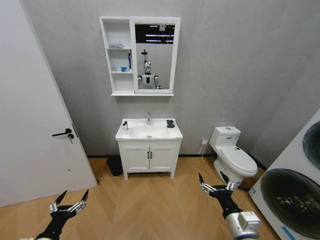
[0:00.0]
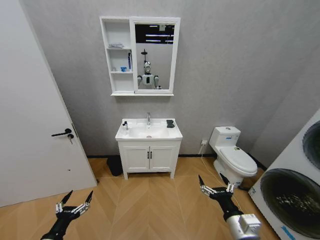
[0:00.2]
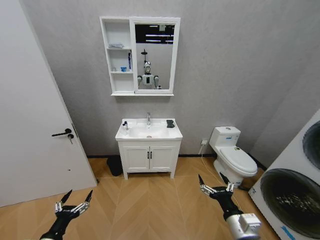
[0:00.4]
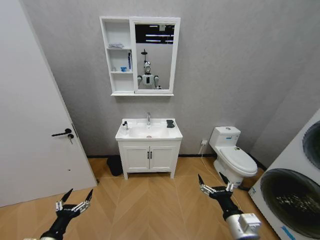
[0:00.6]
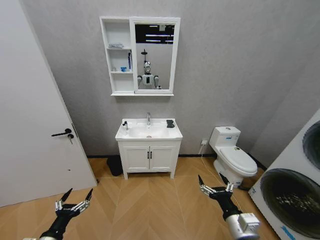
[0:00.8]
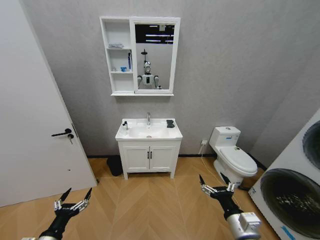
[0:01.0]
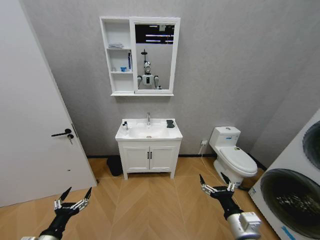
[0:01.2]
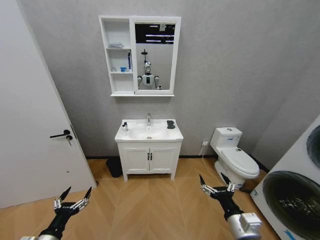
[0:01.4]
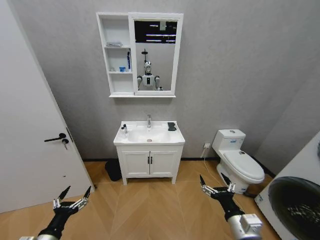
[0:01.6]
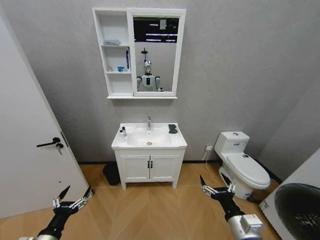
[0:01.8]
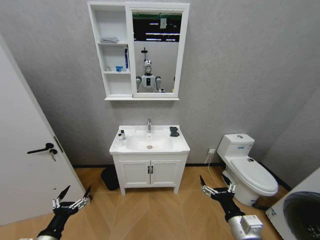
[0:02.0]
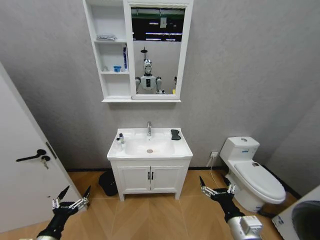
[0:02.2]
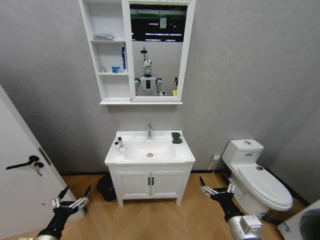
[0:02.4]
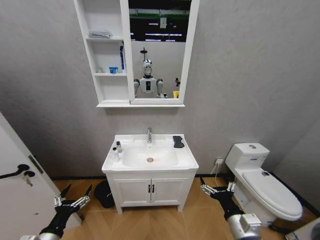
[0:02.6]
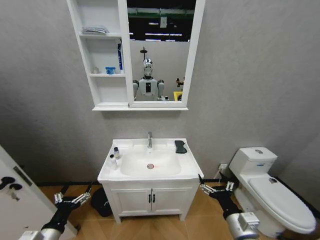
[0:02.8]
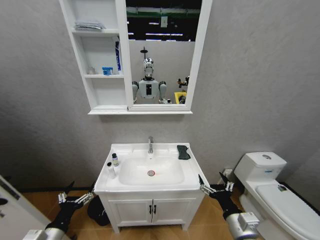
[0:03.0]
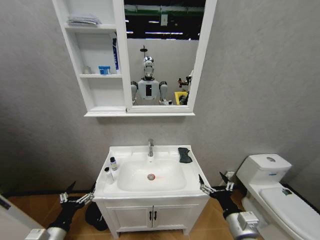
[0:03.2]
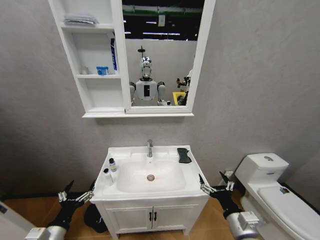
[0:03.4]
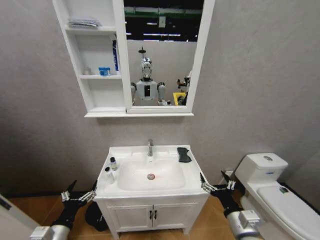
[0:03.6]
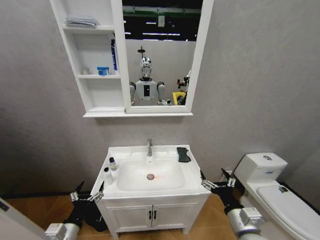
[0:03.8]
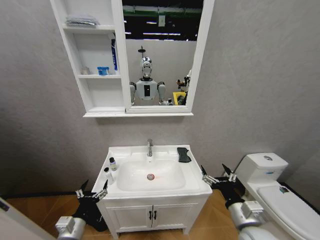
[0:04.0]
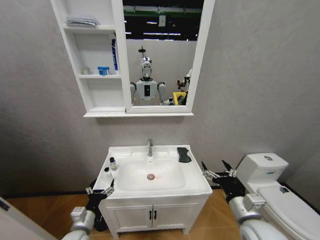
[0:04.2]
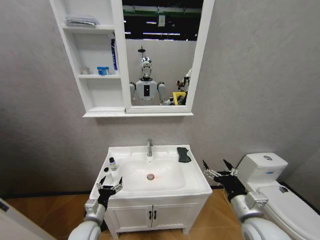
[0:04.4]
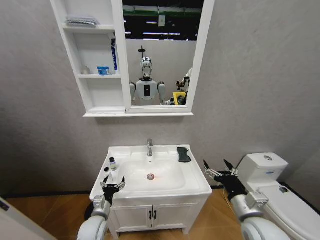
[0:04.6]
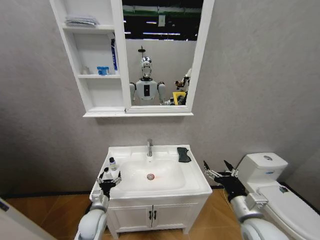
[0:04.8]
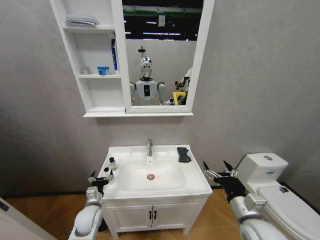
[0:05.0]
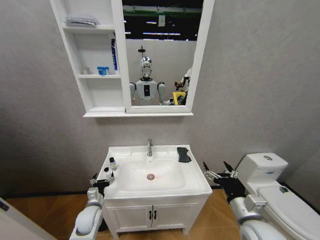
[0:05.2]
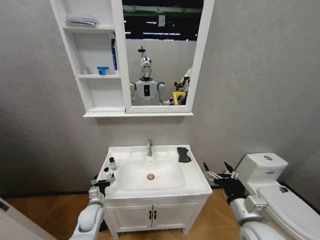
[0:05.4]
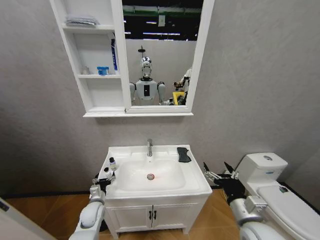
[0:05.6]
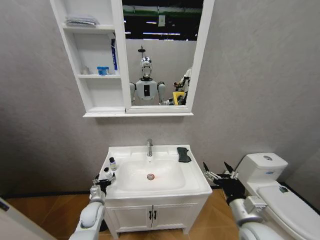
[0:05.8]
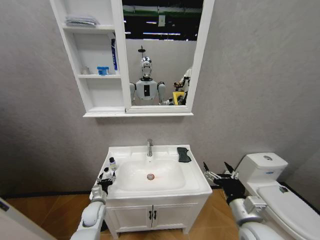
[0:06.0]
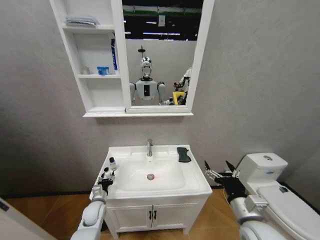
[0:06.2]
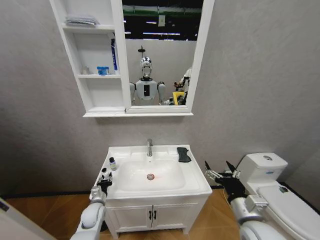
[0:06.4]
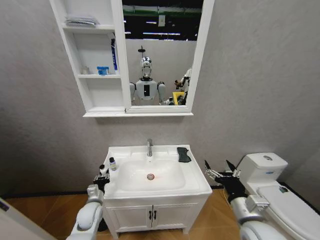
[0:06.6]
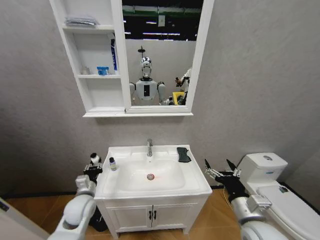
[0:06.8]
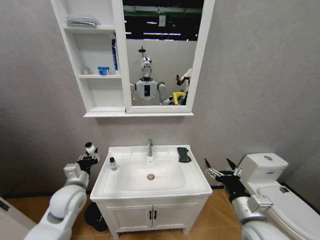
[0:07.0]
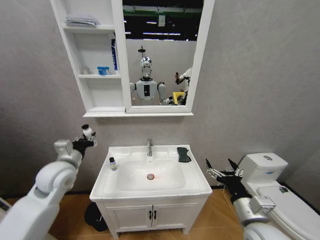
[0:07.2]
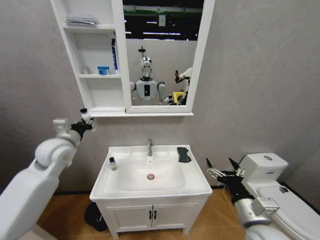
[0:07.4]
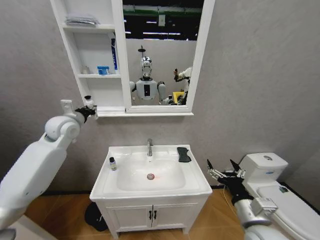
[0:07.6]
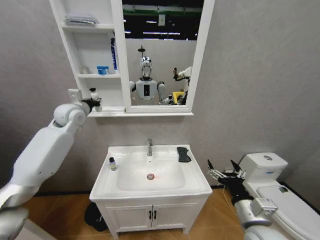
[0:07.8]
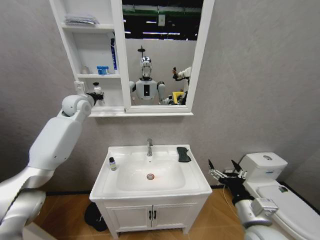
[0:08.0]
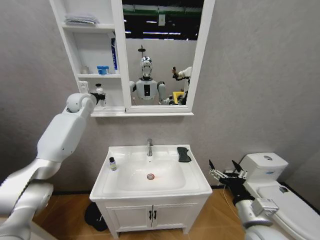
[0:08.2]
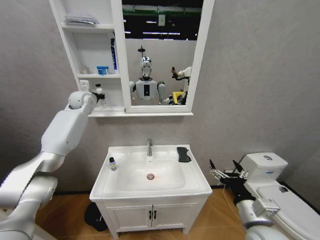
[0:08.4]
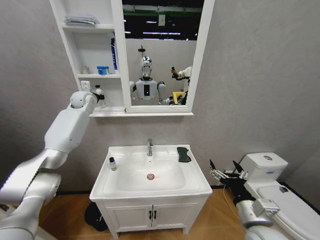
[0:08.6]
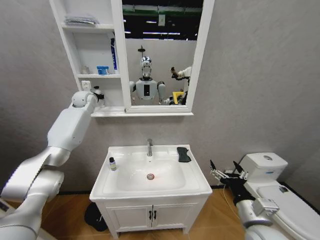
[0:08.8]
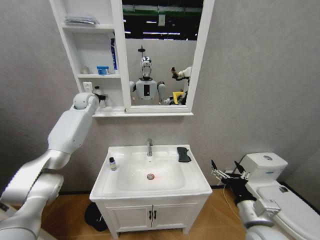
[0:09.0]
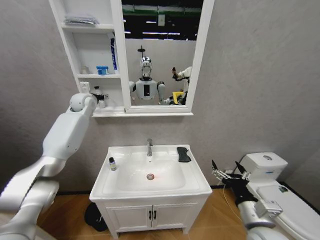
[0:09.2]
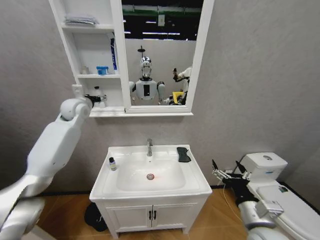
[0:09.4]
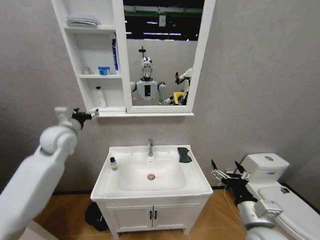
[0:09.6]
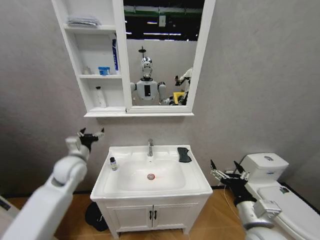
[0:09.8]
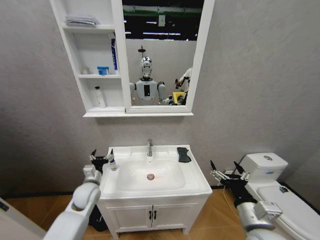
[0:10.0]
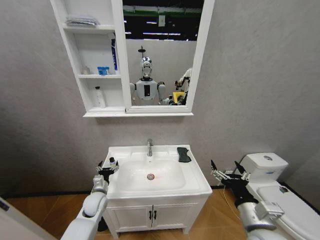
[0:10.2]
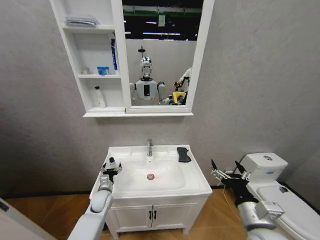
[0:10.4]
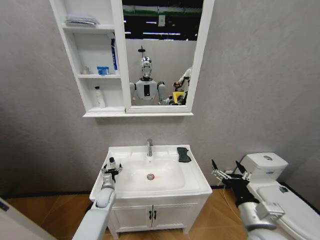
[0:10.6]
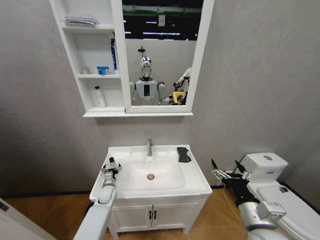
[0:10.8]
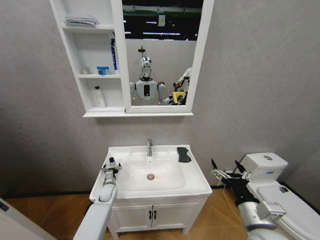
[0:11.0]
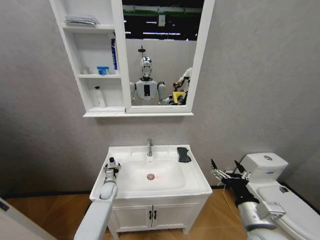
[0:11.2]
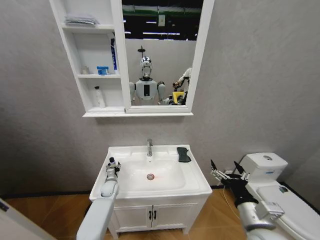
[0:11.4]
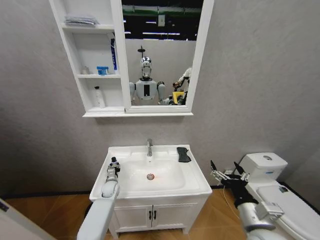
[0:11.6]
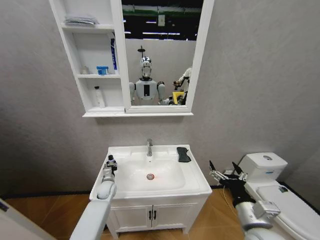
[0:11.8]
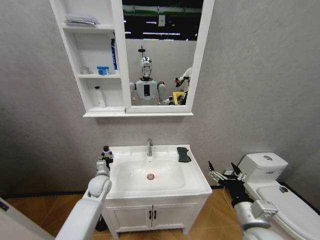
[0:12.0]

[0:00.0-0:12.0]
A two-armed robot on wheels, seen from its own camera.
Task of the whole recording: Move facial cleanser and shampoo from washbasin to cabinet, then wipe washbasin with towel.
0:03.0 to 0:04.4: The left gripper shifts roughly 15 cm forward and to the right. Meanwhile the right gripper moves approximately 5 cm.
0:04.4 to 0:06.0: The left gripper shifts some 10 cm forward and downward.
0:06.0 to 0:07.6: The left gripper goes approximately 40 cm upward, and closes its fingers.
0:07.6 to 0:09.0: The left gripper goes approximately 15 cm forward, and opens its fingers.
0:09.0 to 0:10.4: The left gripper moves downward and backward, approximately 50 cm, and opens its fingers.
0:10.4 to 0:12.0: The left gripper is displaced upward by roughly 5 cm, and closes its fingers.

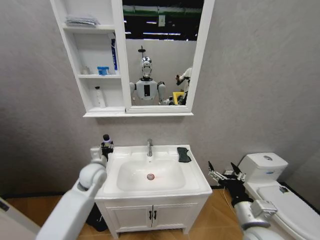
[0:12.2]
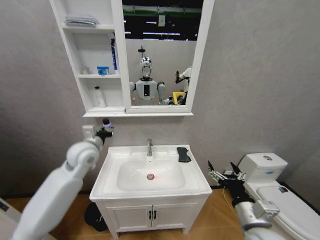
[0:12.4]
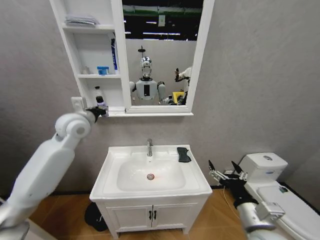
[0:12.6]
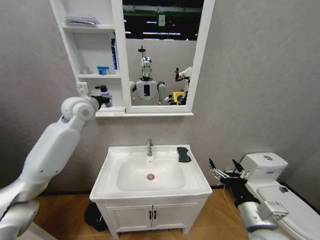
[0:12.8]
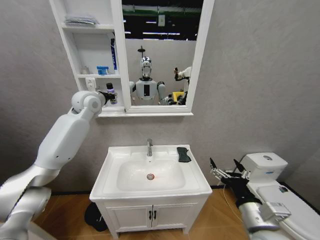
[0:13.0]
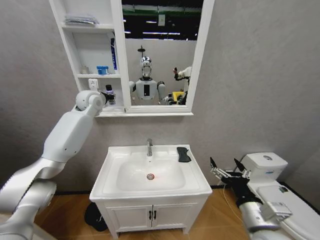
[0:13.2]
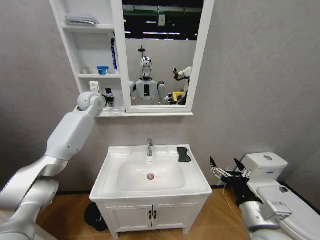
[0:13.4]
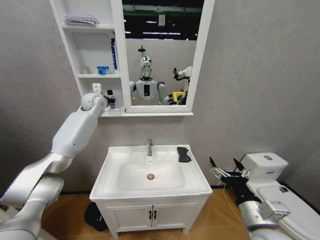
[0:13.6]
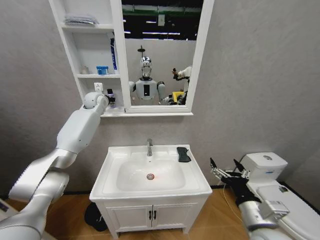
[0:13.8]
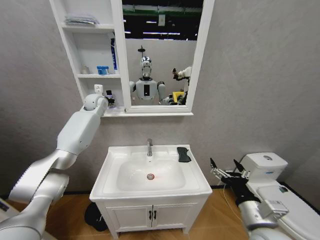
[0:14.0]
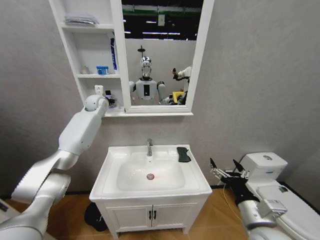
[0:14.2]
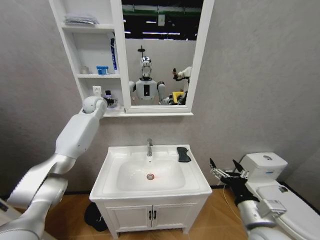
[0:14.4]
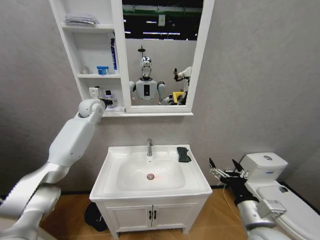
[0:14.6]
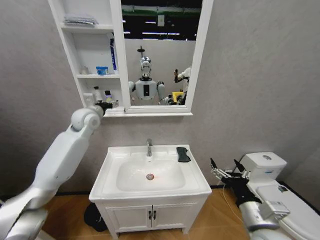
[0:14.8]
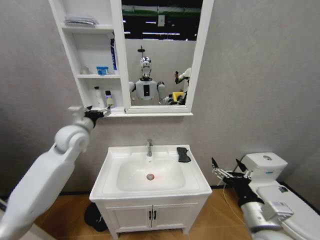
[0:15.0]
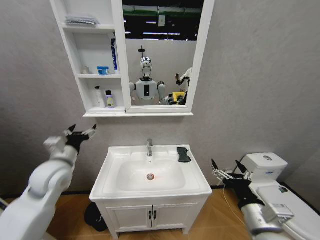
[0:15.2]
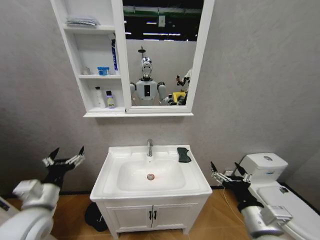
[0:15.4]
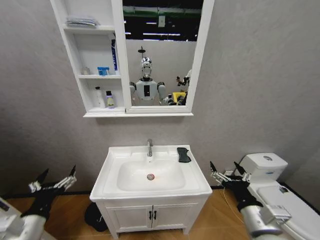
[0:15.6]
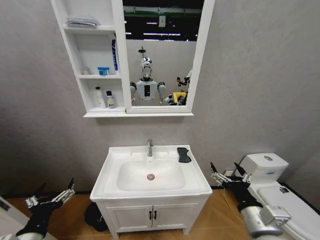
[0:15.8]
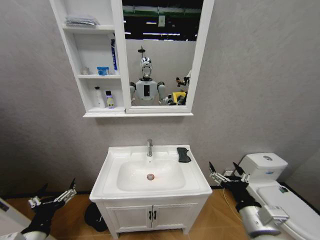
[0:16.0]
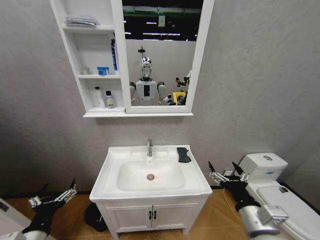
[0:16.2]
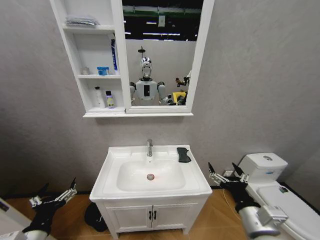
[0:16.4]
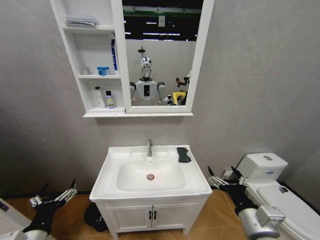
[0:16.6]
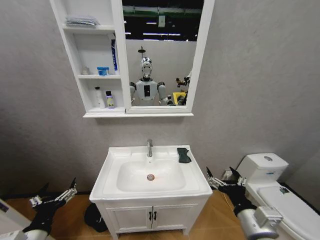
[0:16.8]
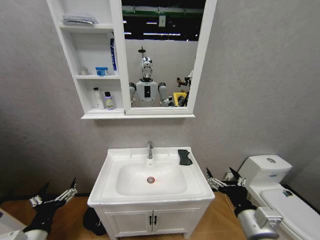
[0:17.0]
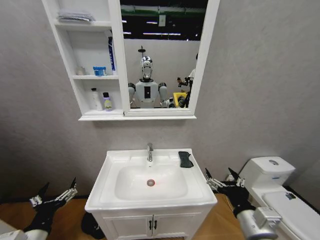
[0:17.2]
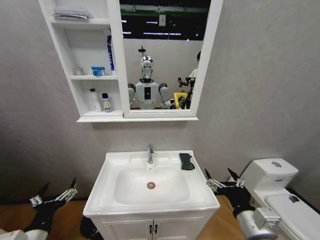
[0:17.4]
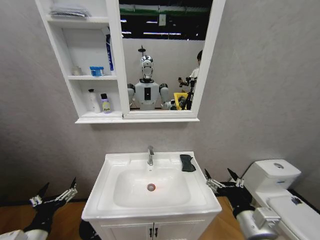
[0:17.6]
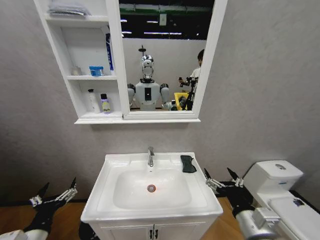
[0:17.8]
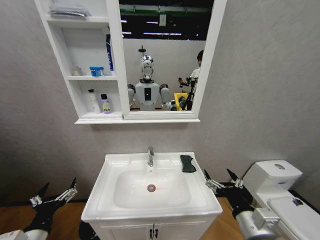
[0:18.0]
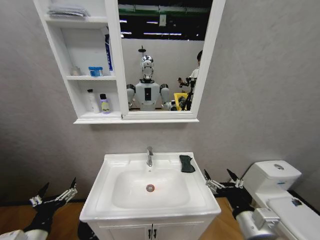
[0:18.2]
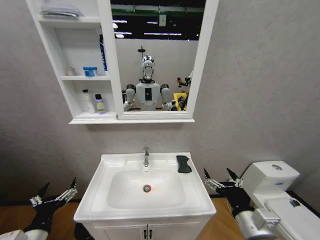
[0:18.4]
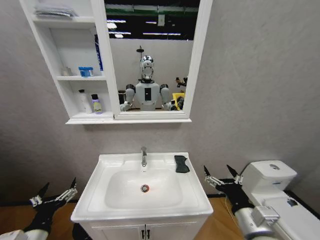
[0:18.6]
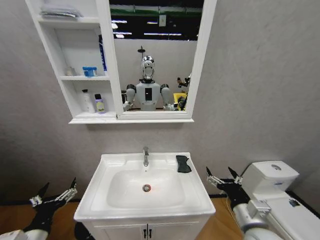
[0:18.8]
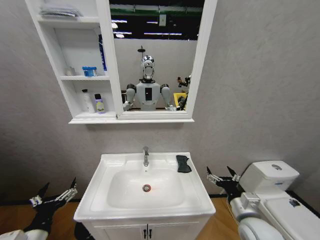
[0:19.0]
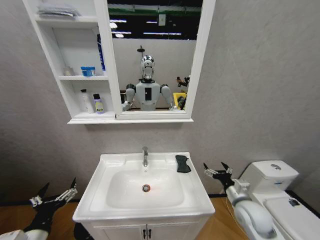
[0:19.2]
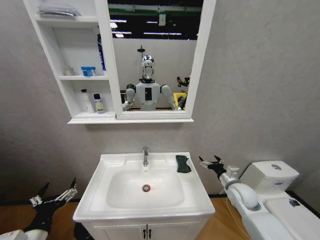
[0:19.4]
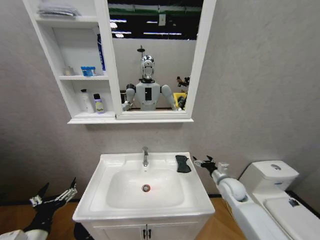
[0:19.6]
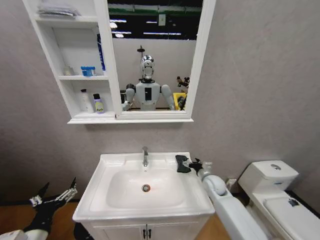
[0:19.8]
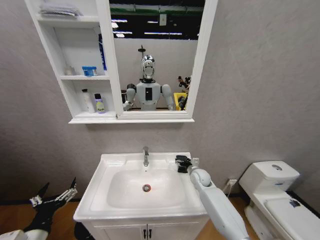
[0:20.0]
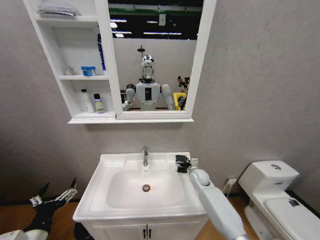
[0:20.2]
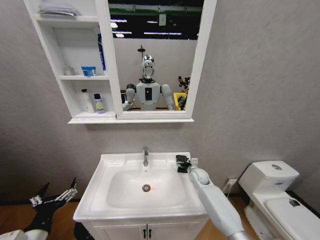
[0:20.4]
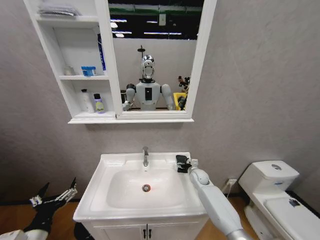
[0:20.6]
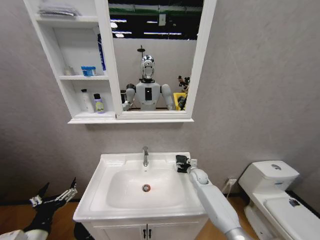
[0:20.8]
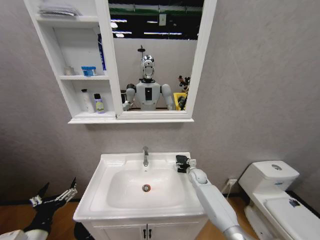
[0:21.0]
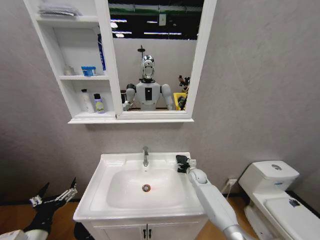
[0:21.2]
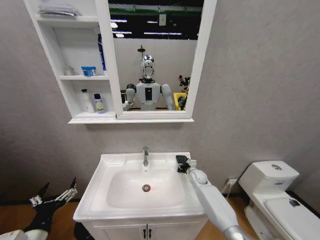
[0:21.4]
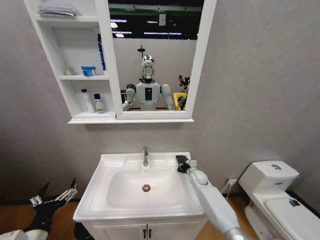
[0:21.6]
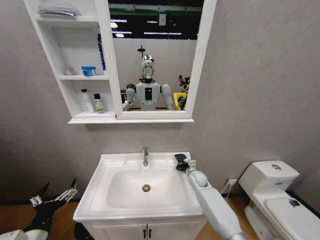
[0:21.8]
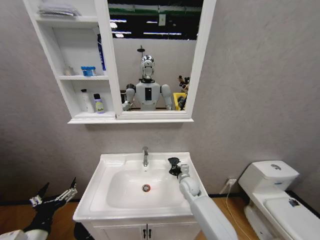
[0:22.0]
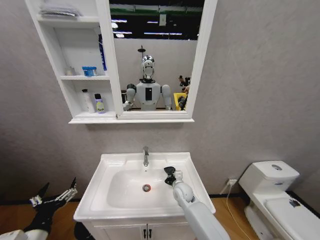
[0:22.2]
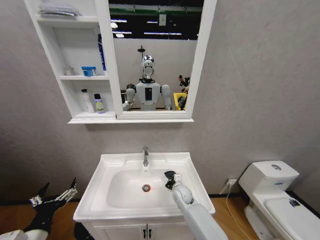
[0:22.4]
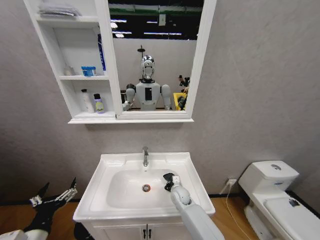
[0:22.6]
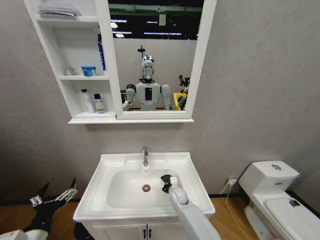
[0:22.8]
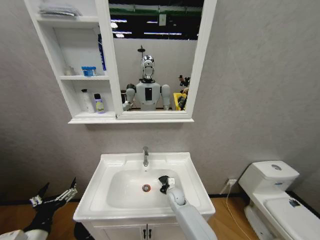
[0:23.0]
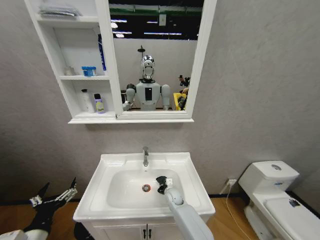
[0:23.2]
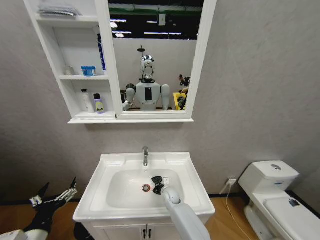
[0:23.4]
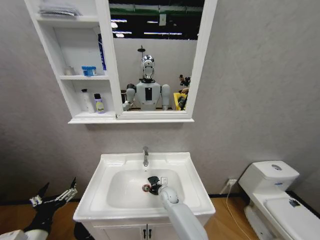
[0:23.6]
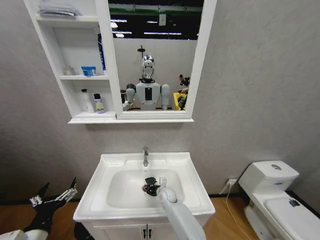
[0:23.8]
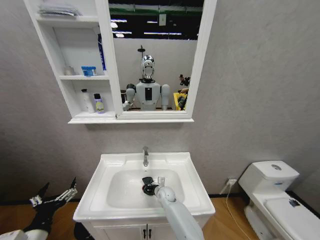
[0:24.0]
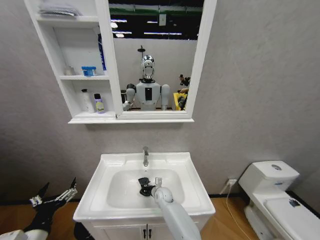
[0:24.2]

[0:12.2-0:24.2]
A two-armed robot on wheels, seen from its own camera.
Task of the whole recording: Move facial cleanser and shampoo from washbasin to cabinet, then wipe washbasin with towel.
0:12.2 to 0:13.8: The left gripper moves upward and forward, about 30 cm.
0:13.8 to 0:15.2: The left gripper is displaced backward and downward by some 35 cm, and opens.
0:15.2 to 0:16.6: The left gripper travels backward and downward by some 20 cm.
0:18.2 to 0:19.8: The right gripper moves forward, roughly 30 cm.
0:19.8 to 0:21.2: The right gripper heads forward, covering roughly 10 cm.
0:21.2 to 0:22.6: The right gripper heads to the left and backward, covering about 15 cm, and closes its fingers.
0:22.6 to 0:24.2: The right gripper goes some 10 cm to the left.
